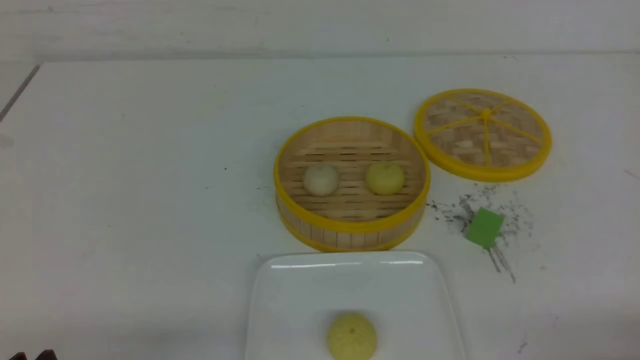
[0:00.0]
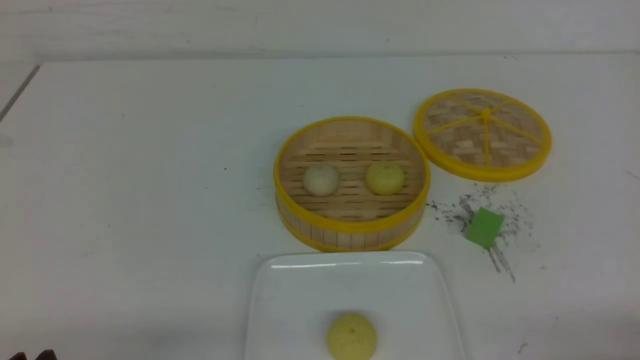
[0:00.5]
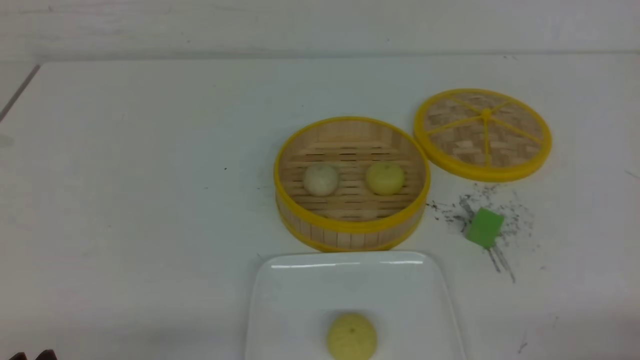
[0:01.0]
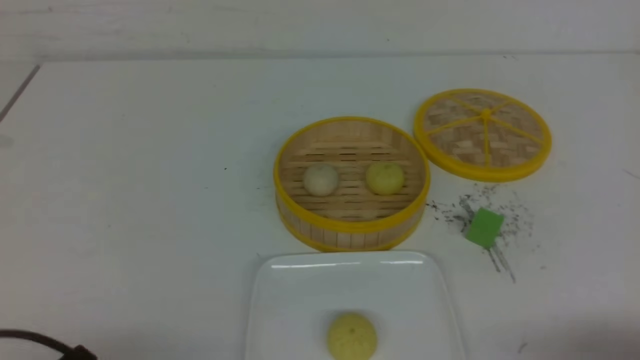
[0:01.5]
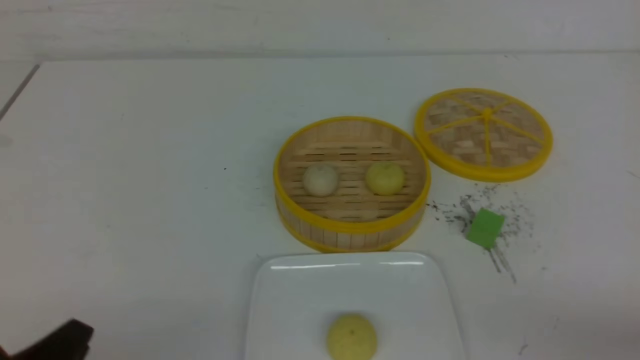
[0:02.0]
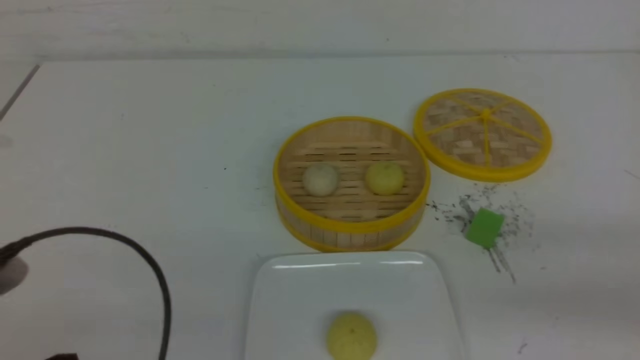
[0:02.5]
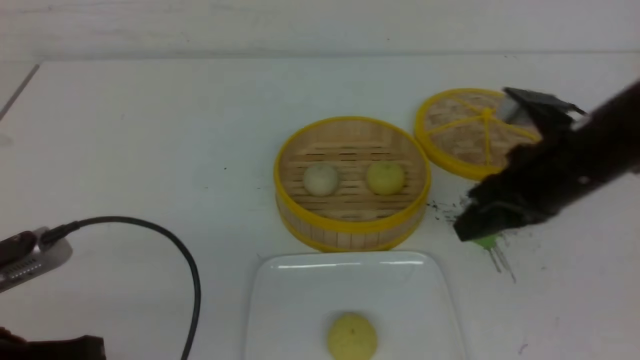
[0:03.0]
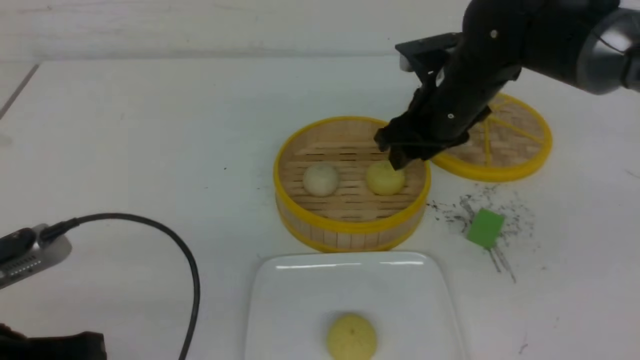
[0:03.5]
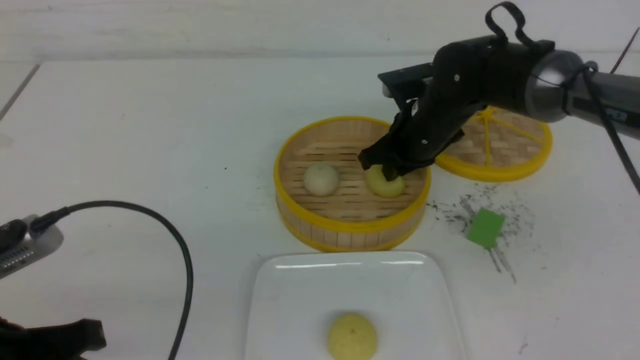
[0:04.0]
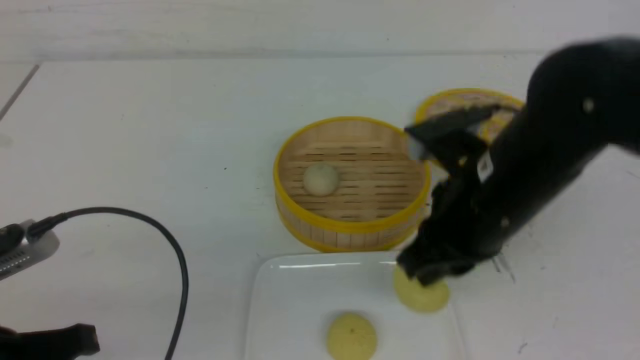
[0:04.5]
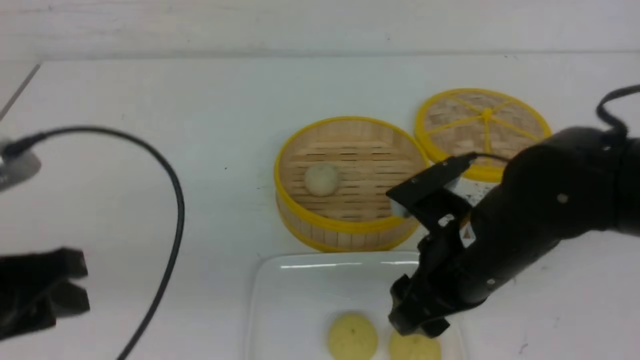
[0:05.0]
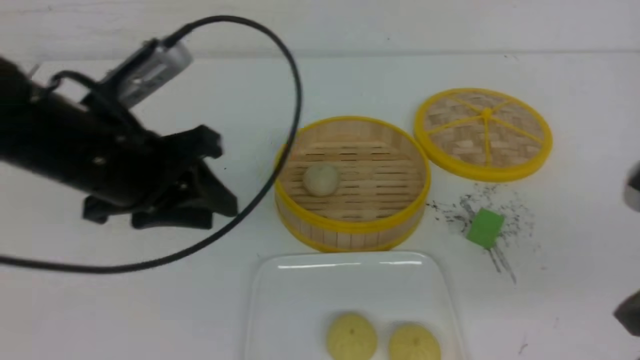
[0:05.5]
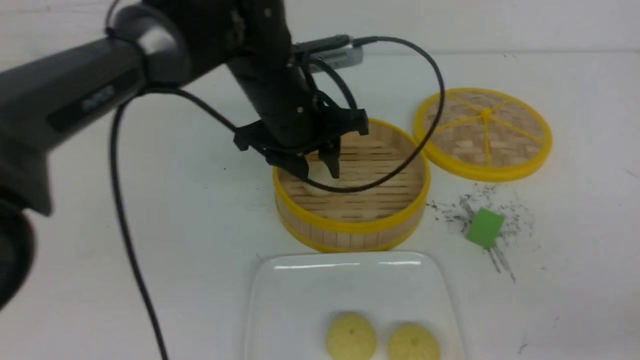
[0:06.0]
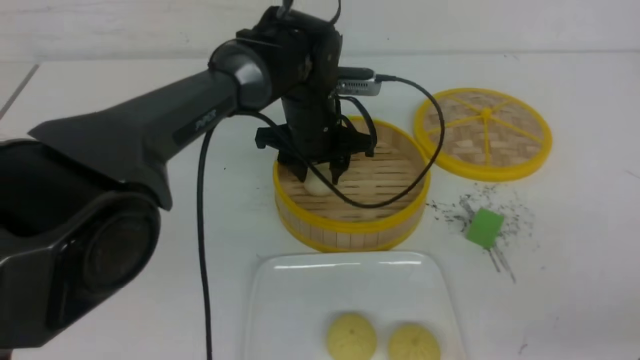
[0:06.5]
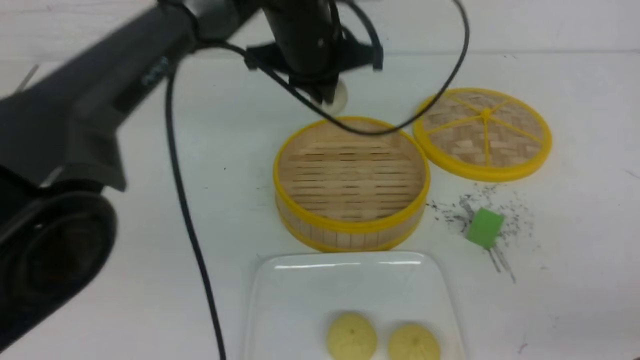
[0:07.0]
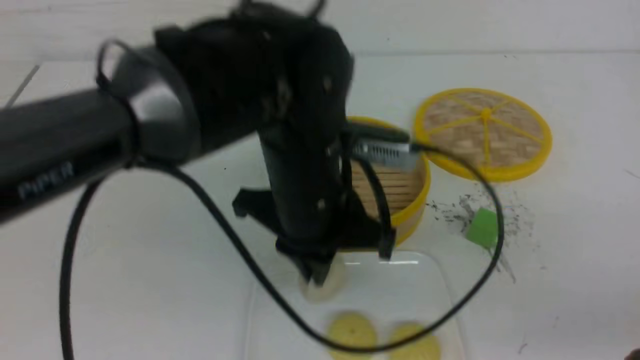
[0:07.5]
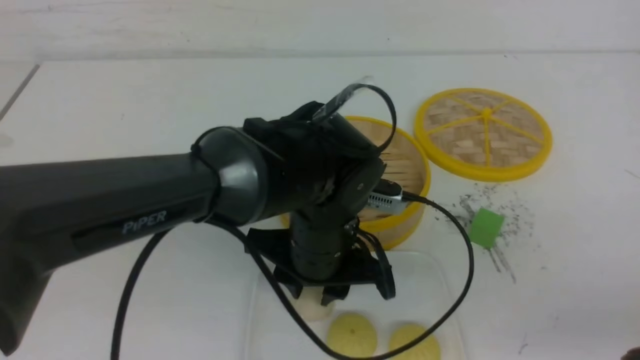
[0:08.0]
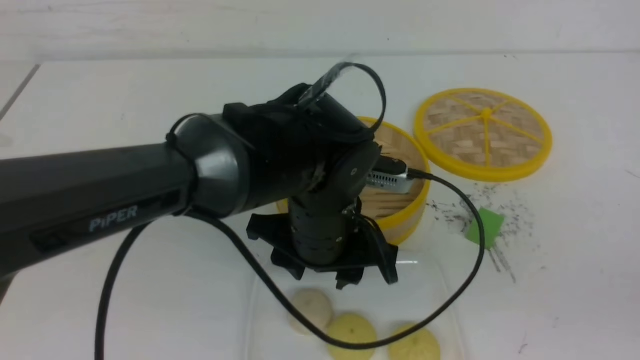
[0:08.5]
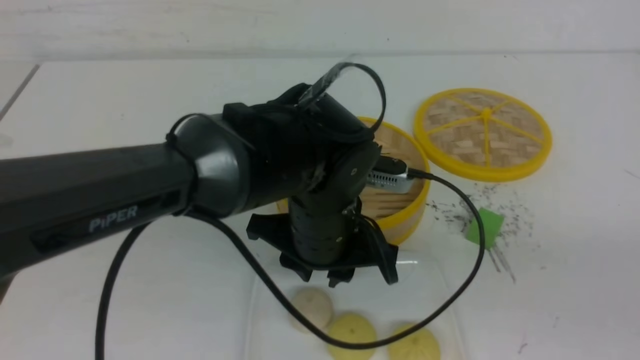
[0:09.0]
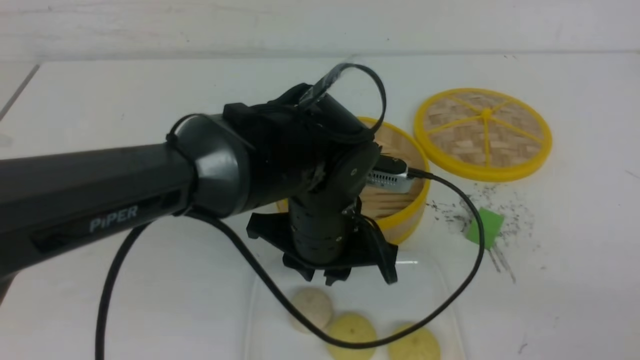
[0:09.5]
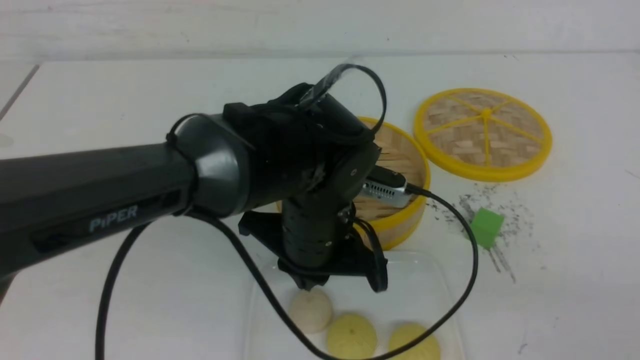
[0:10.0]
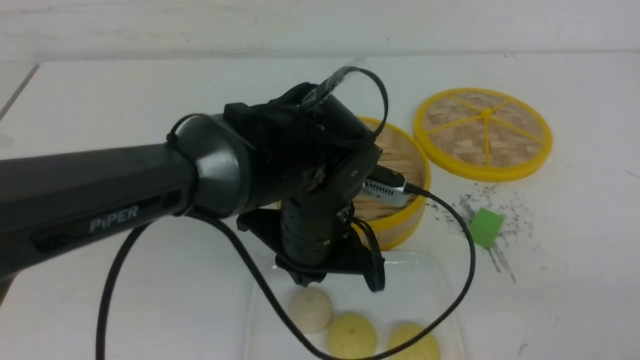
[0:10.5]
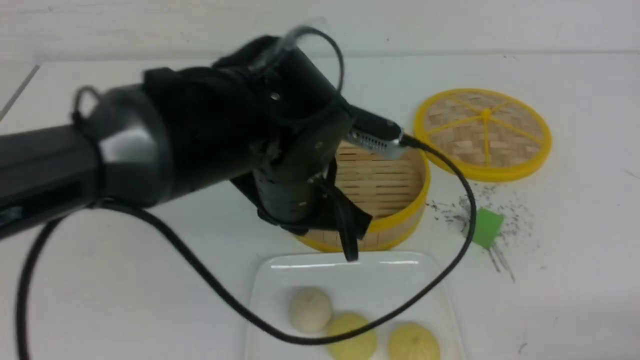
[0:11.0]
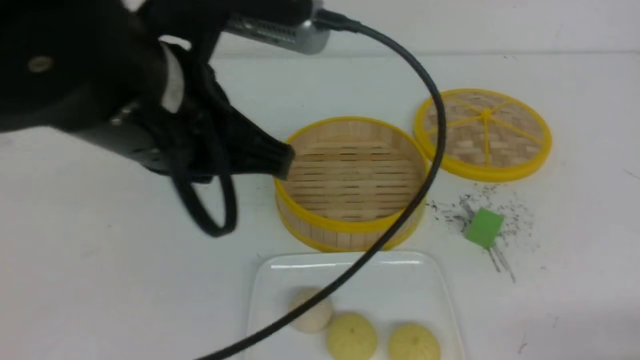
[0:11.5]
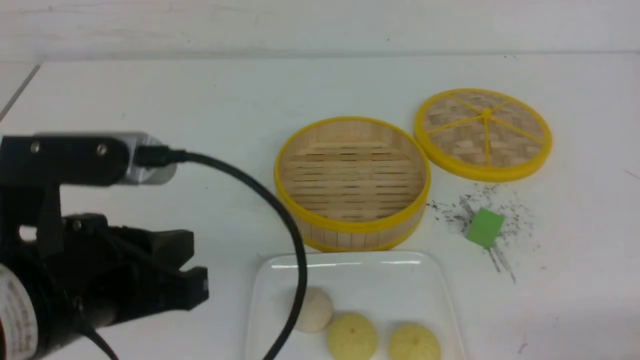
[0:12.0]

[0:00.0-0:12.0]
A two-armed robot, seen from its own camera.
Step, 0:00.0 to 0:04.0: use the right arm to grab the steamed stuffed bun that is closest to it.
Step, 0:05.0 to 0:06.5: use the left arm to grab the steamed stuffed bun that is closest to it.
Step, 0:07.0 to 0:08.0: use the left arm to put the steamed stuffed bun into the plate.
0:00.0 to 0:02.0: The left gripper changes place by approximately 5 cm.
0:02.0 to 0:04.0: The right gripper shifts some 40 cm forward and to the left, and opens and closes again. Meanwhile the left gripper is displaced forward by roughly 5 cm.
0:04.0 to 0:06.0: The left gripper goes roughly 30 cm forward and to the right, and opens; the right gripper travels backward and to the right by about 35 cm, and opens, then closes again.
0:06.0 to 0:08.0: The left gripper heads backward and downward, covering about 15 cm, and closes and opens again.
0:08.0 to 0:10.0: The right gripper is displaced backward by roughly 5 cm; the left gripper closes its fingers.
0:10.0 to 0:12.0: The right gripper heads downward, covering some 15 cm, while the left gripper is displaced to the left, backward and upward by approximately 20 cm.

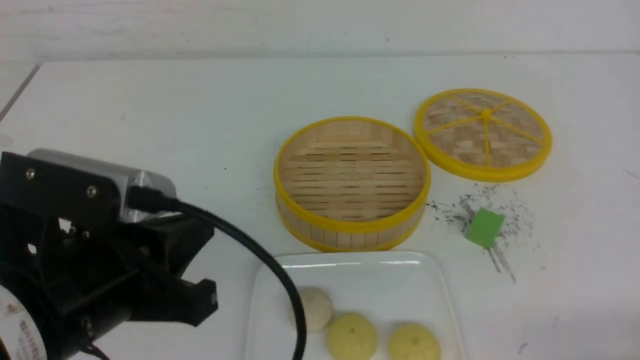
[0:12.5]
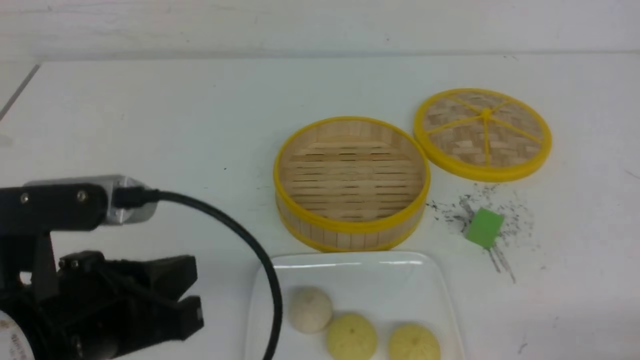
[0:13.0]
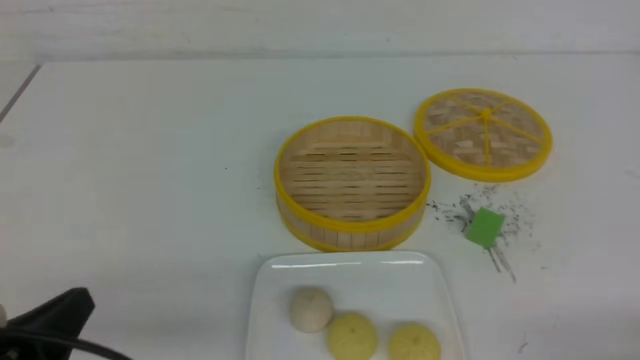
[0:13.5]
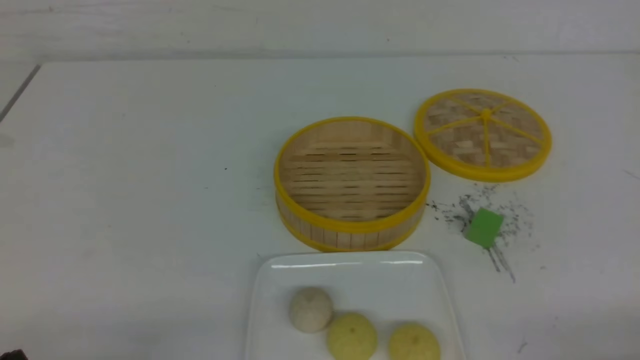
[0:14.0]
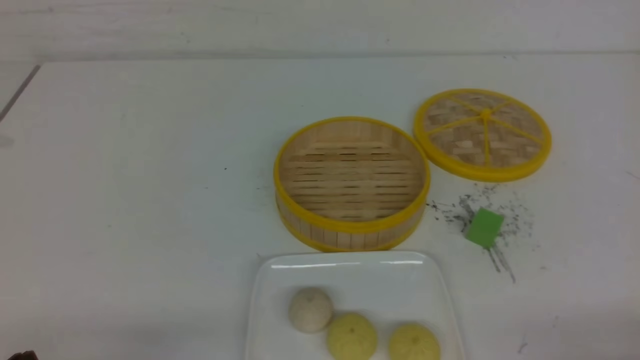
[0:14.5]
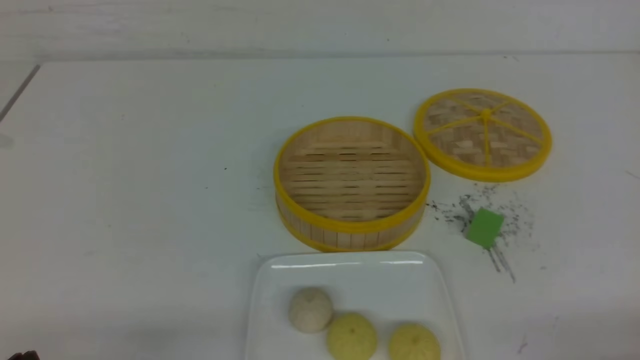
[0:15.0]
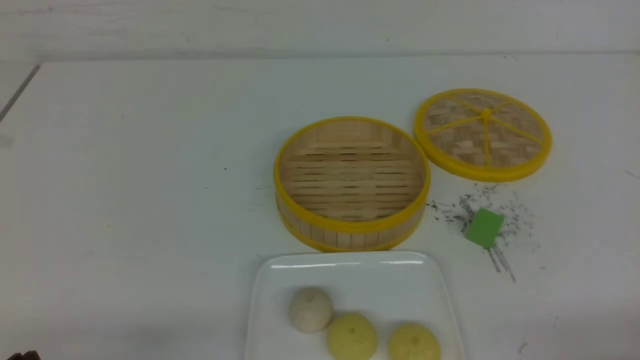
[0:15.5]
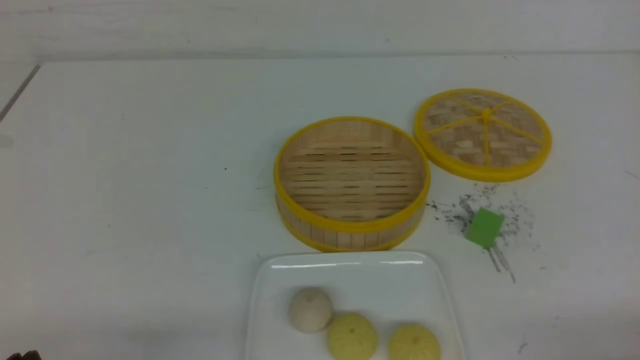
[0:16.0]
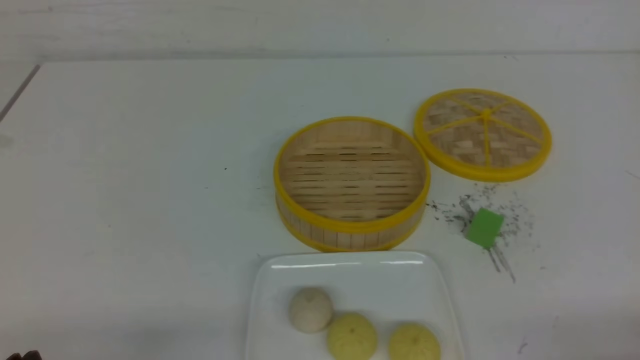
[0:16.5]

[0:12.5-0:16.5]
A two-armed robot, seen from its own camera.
0:12.5 to 0:14.5: The left gripper is displaced downward, to the left and backward by roughly 20 cm.
0:14.5 to 0:16.5: Neither gripper changes place.
